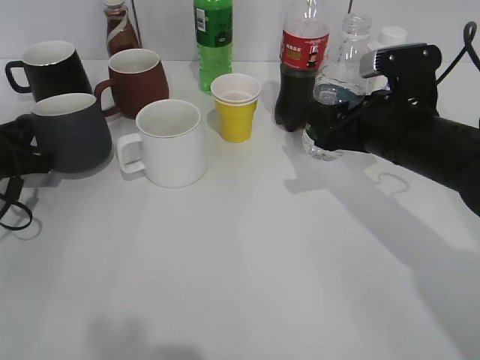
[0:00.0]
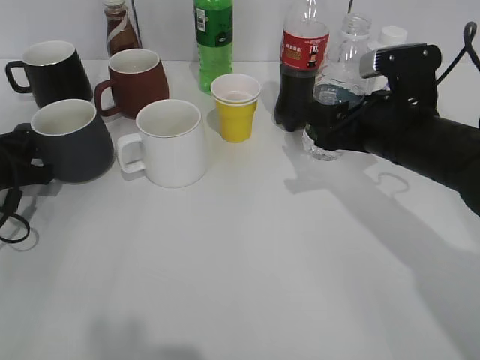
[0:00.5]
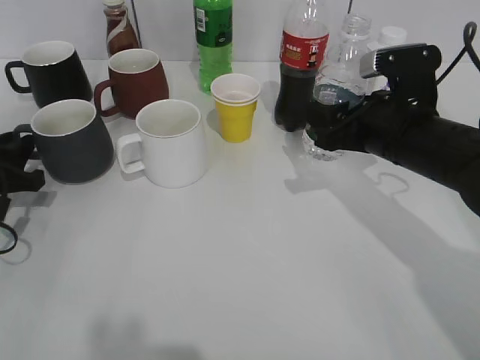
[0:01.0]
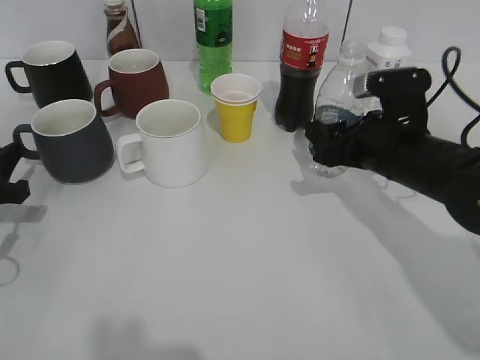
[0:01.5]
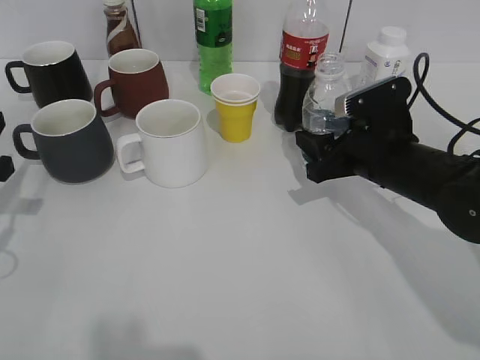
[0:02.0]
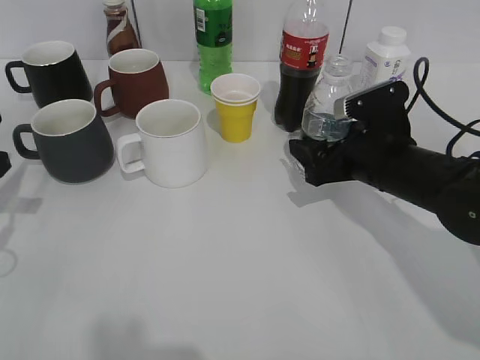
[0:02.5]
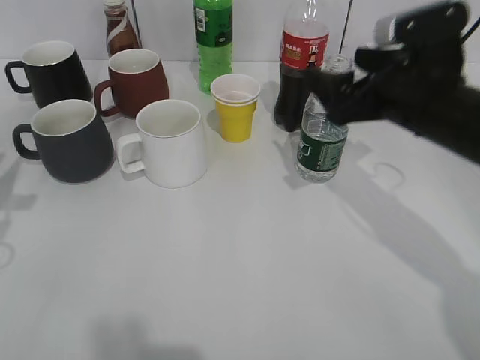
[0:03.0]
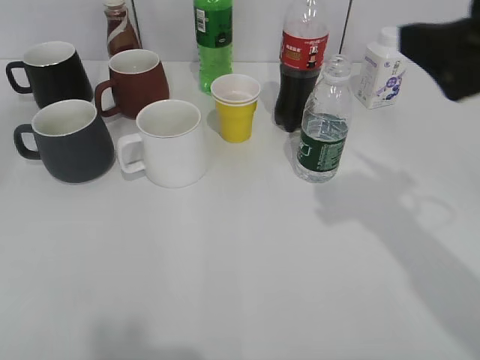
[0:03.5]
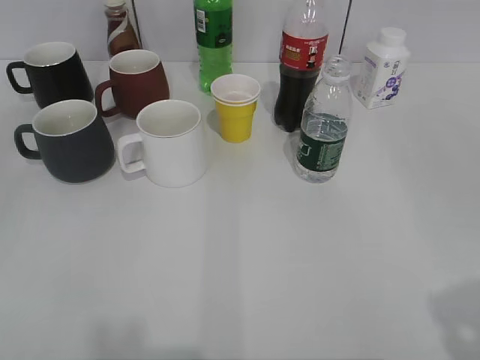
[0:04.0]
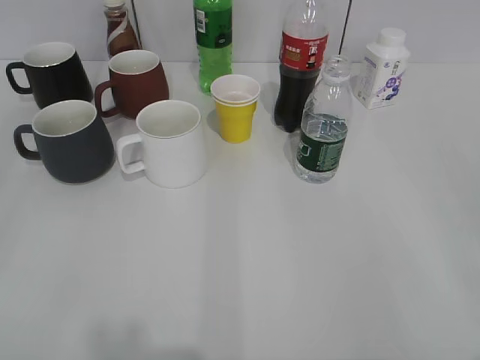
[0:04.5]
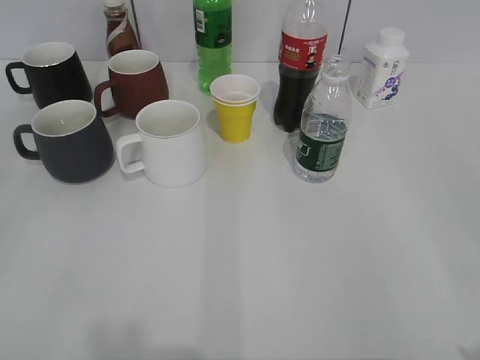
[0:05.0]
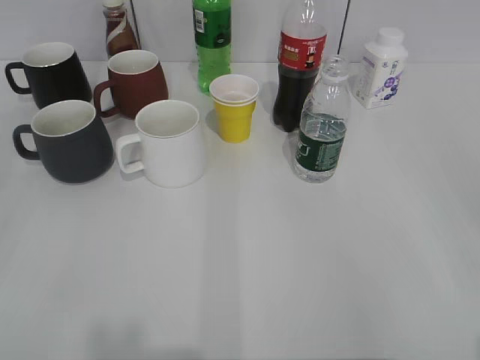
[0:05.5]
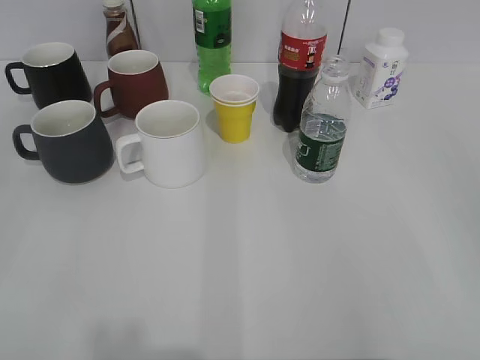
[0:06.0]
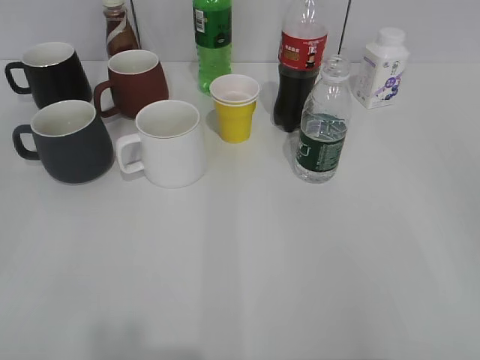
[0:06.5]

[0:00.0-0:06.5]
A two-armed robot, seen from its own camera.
Step, 0:01.5 to 0:02.5: Place the water bottle on the table with right gripper.
0:00.0 to 0:02.0: The left gripper moves backward and upward, some 10 cm.
0:02.0 to 0:04.5: The right gripper travels backward, upward and to the right by roughly 35 cm, and opens. Meanwhile the left gripper is displaced backward and upward by approximately 30 cm, and opens its fingers.

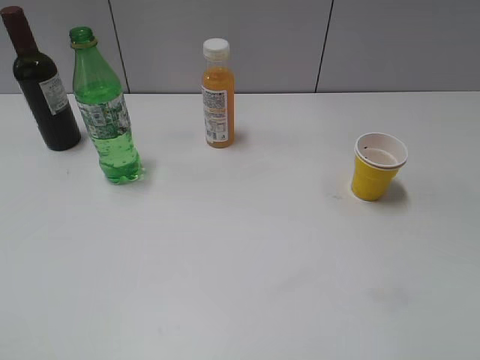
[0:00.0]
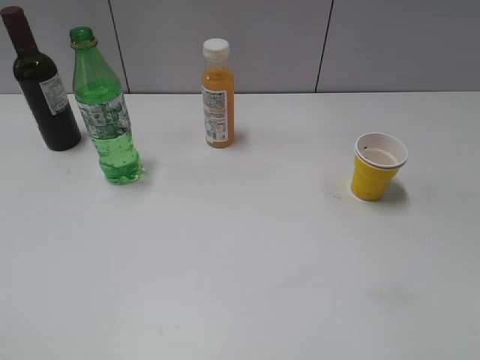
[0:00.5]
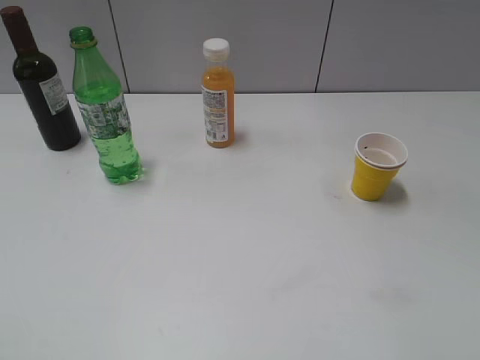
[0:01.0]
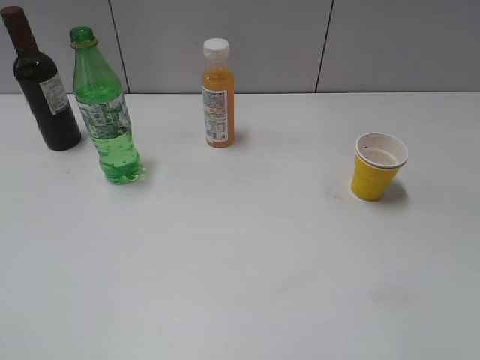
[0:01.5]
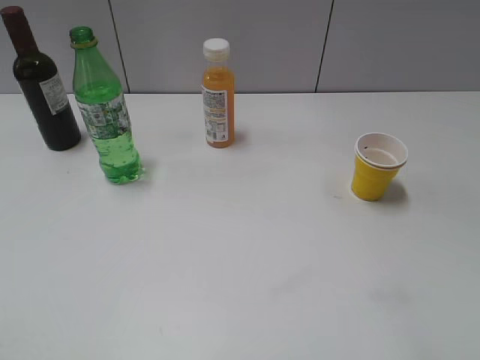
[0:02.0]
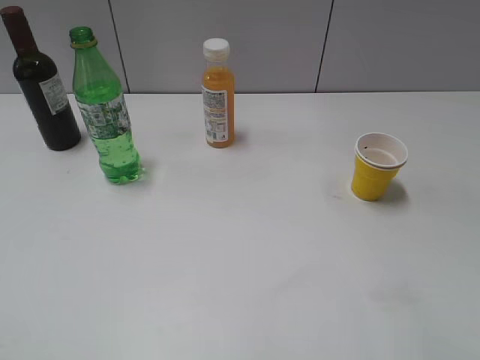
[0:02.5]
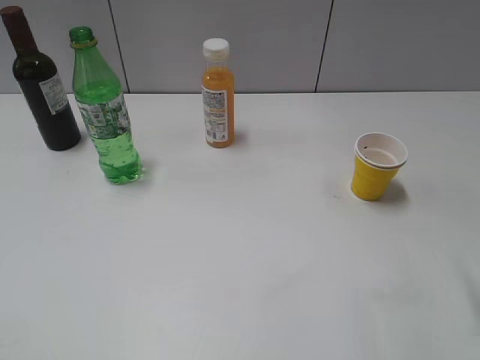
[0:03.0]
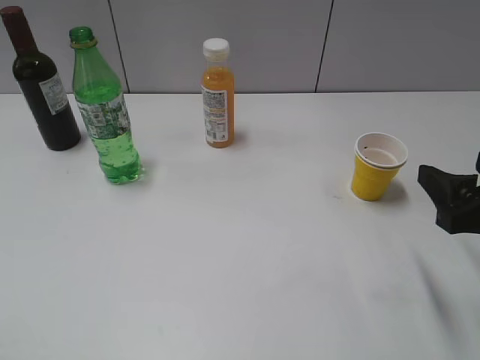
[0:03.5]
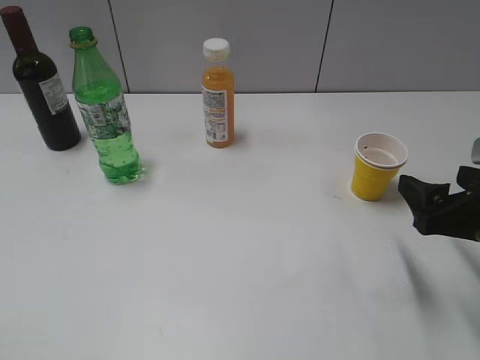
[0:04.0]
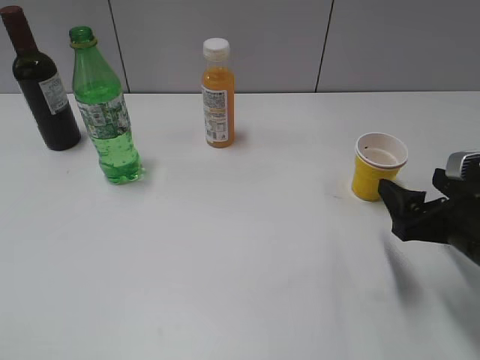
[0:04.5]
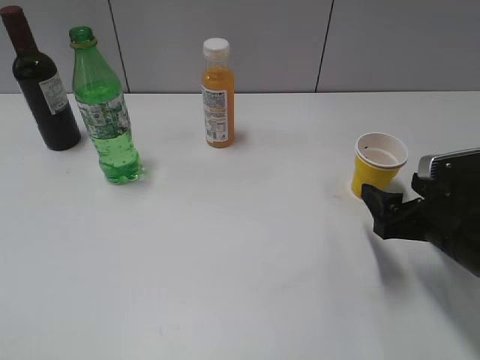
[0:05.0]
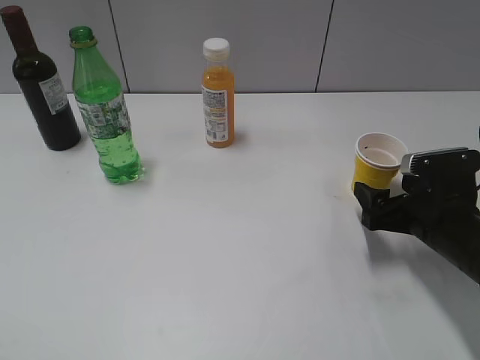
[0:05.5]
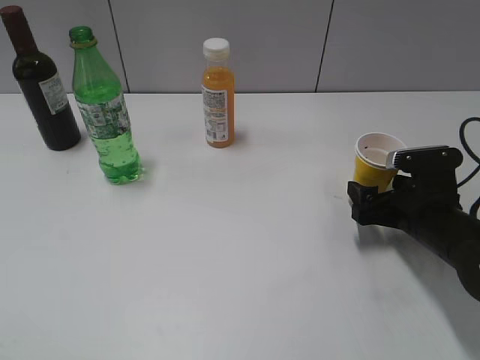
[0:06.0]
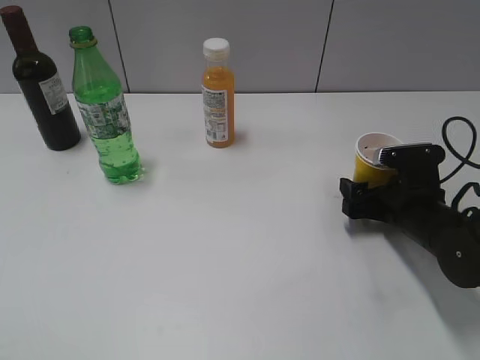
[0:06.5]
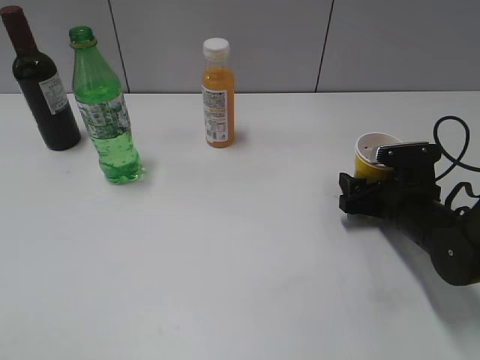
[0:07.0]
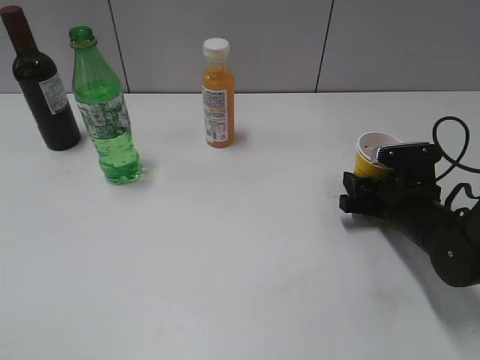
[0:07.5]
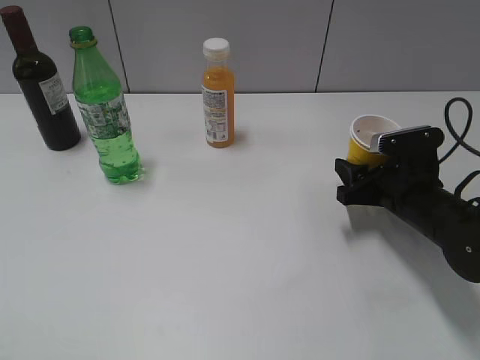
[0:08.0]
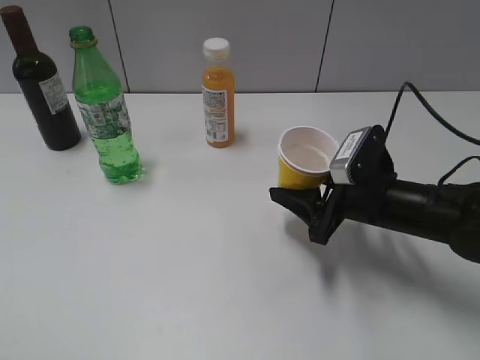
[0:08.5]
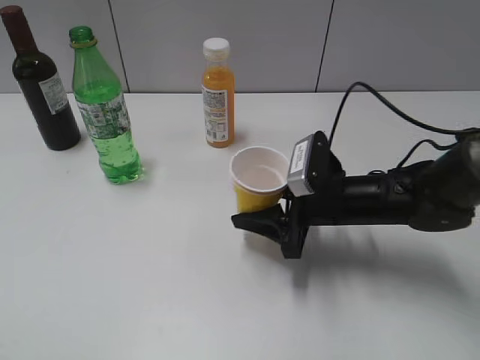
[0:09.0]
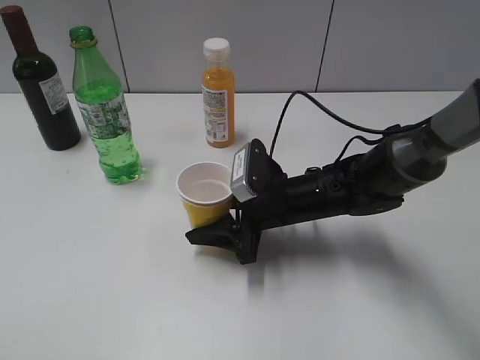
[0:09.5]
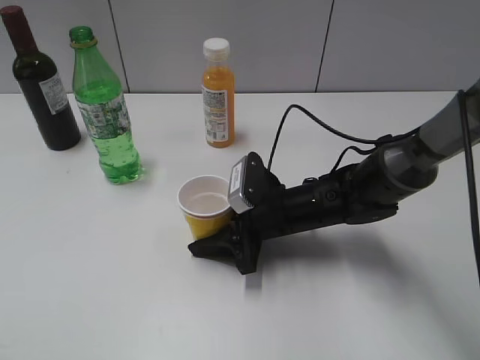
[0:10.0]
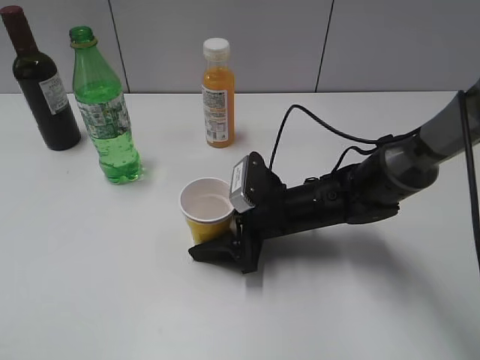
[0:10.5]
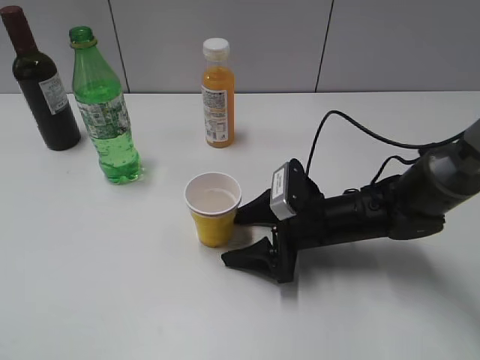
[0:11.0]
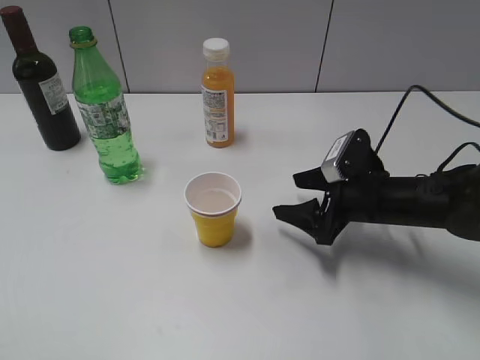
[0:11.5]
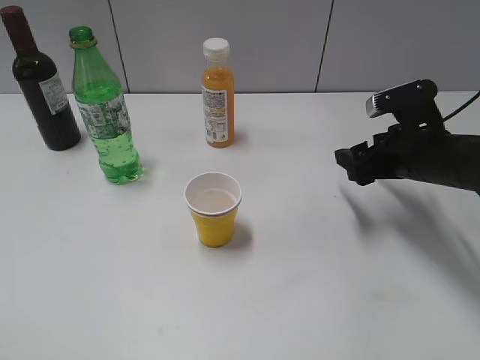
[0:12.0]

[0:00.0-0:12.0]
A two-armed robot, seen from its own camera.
Step, 0:01.5 to 0:07.5: Grasp the yellow paper cup with right gripper.
Step, 0:08.0 to 0:11.0: Place the yellow paper cup on the table with right gripper.
0:02.0 to 0:04.0: The right gripper travels forward and downward by about 20 cm.
0:04.0 to 0:06.0: The right gripper shifts about 15 cm downward and forward.
0:06.0 to 0:08.0: The right gripper closes its fingers.
0:08.0 to 0:10.0: The right gripper heads to the left, covering roughly 15 cm.
0:10.0 to 0:12.0: The right gripper moves to the right and upward, some 20 cm, and opens up.

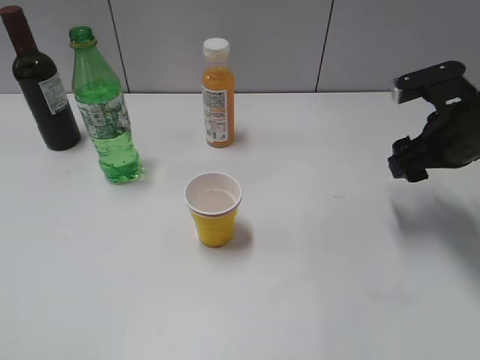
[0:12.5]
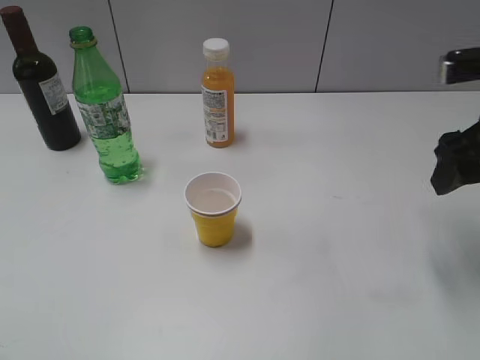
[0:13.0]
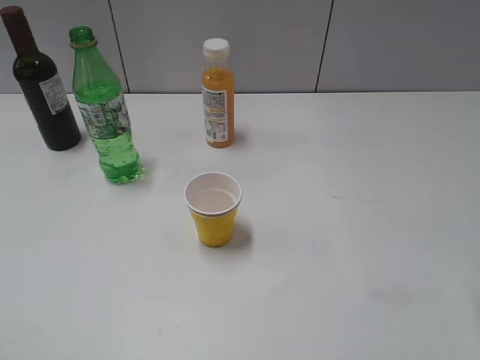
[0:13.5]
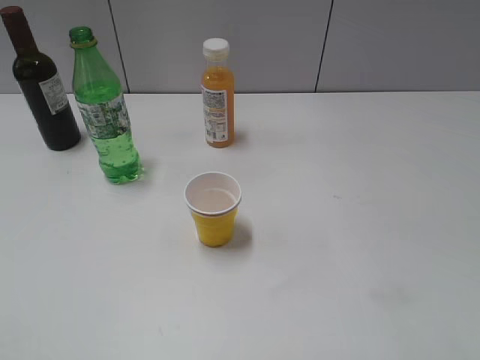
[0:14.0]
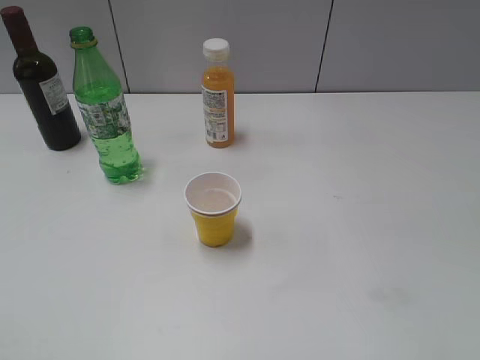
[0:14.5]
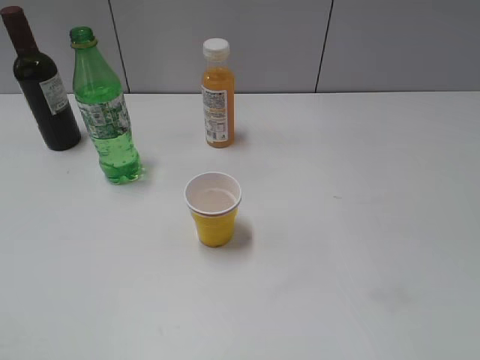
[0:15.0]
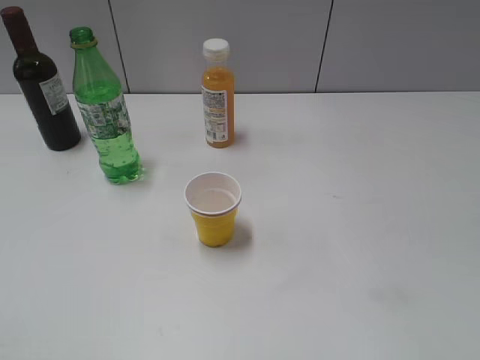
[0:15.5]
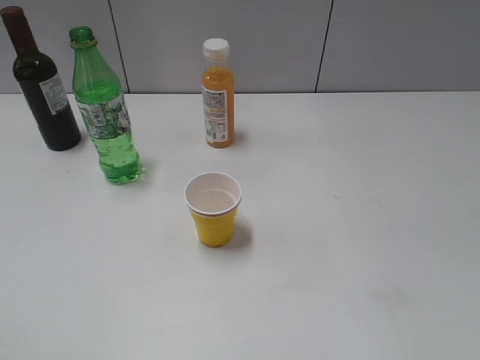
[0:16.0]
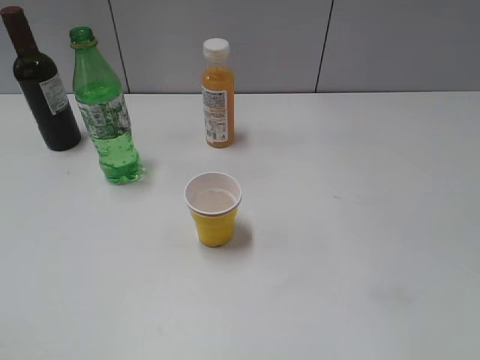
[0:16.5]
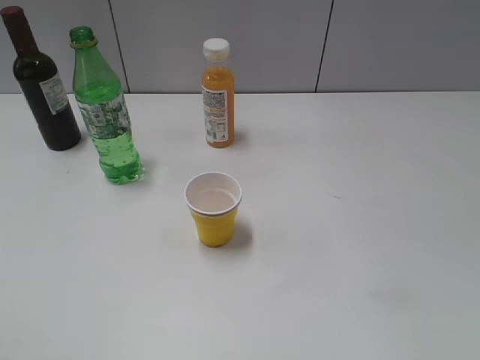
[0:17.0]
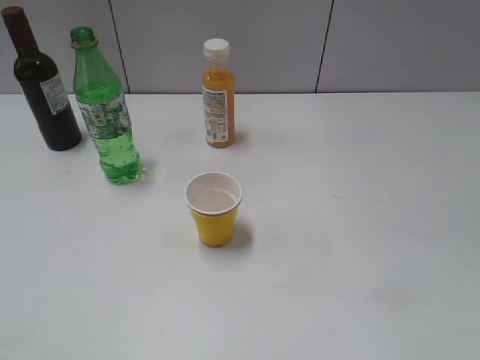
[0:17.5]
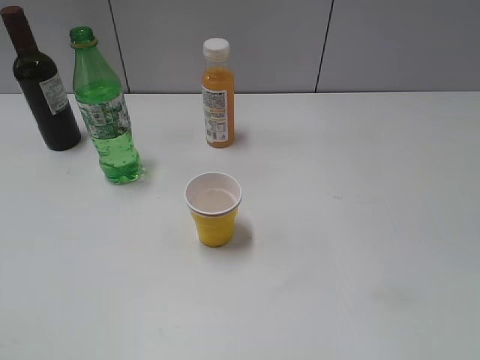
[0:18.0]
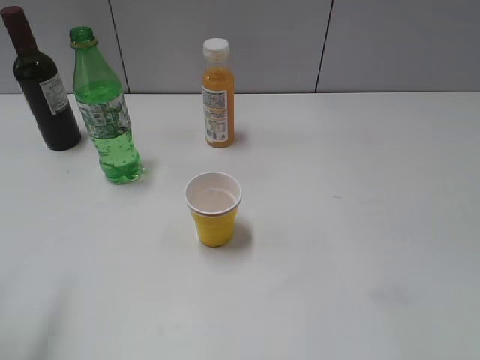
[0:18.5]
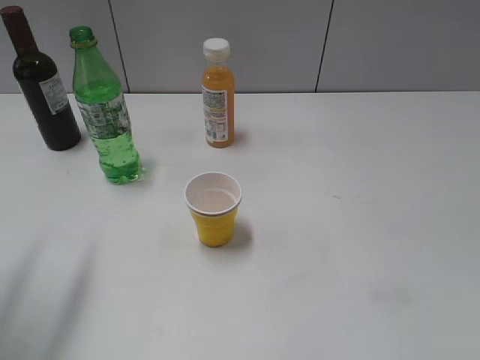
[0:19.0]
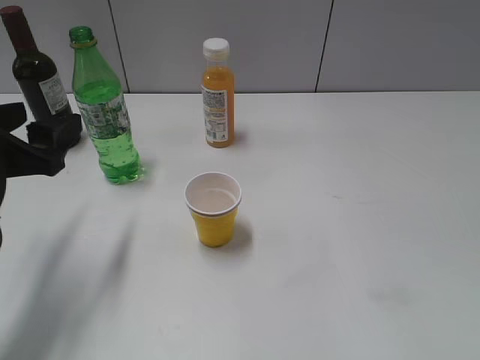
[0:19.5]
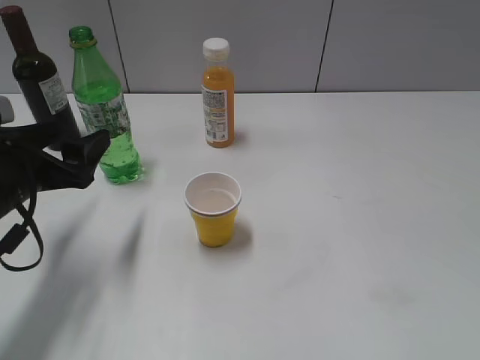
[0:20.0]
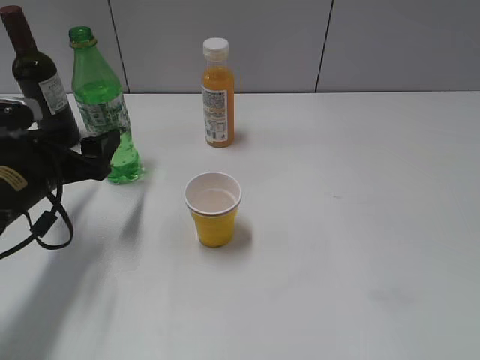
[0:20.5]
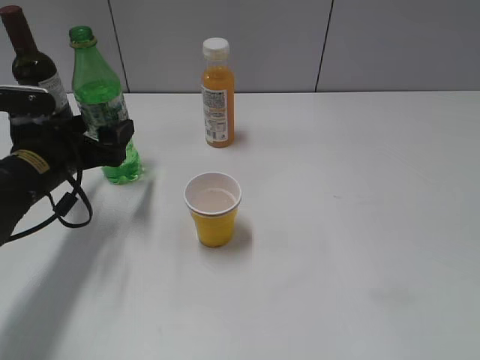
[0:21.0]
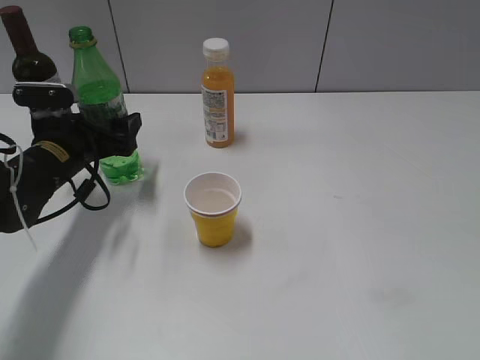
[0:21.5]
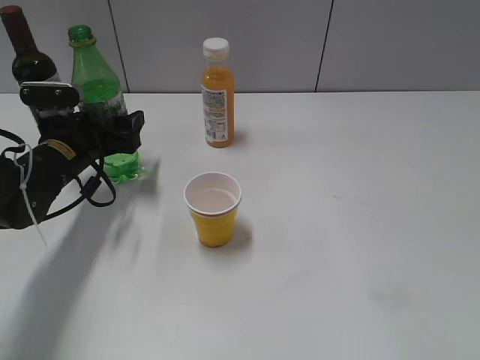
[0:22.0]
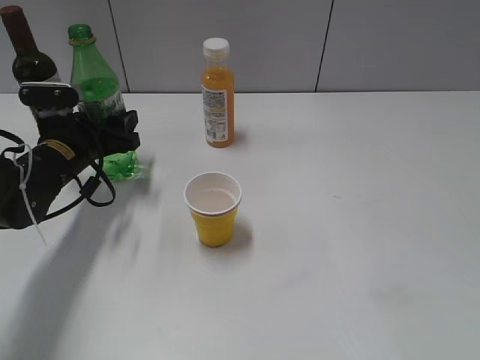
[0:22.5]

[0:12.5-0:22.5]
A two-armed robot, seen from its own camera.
Step, 0:12.5 to 0:22.0: Grasp the bottle with sprite with left gripper.
0:12.5 to 0:14.5: The right gripper is displaced backward by about 25 cm.
0:18.5 to 0:20.5: The left gripper shifts roughly 25 cm downward and forward, and opens.
0:20.5 to 0:22.5: The left gripper heads forward, covering roughly 10 cm, and closes.
